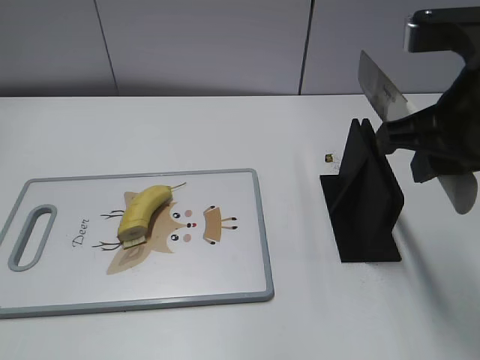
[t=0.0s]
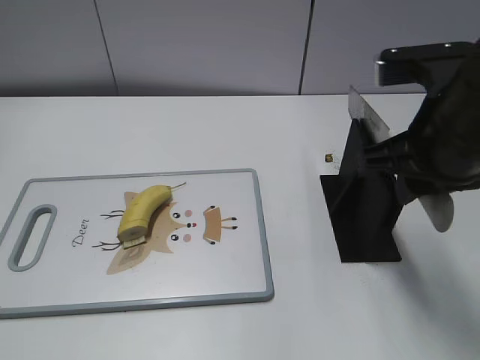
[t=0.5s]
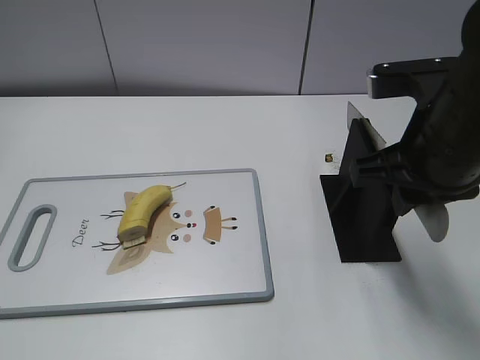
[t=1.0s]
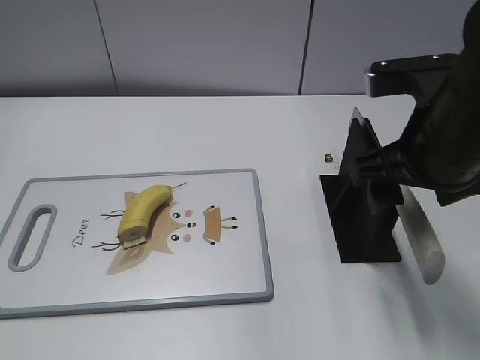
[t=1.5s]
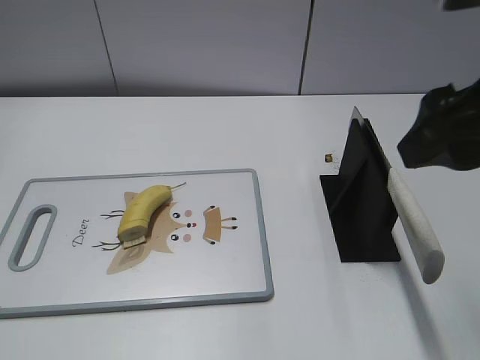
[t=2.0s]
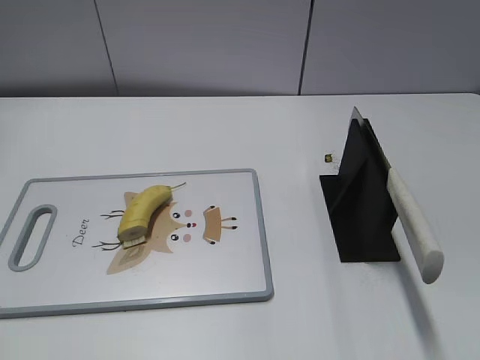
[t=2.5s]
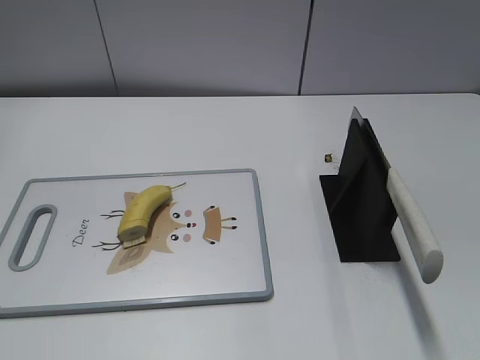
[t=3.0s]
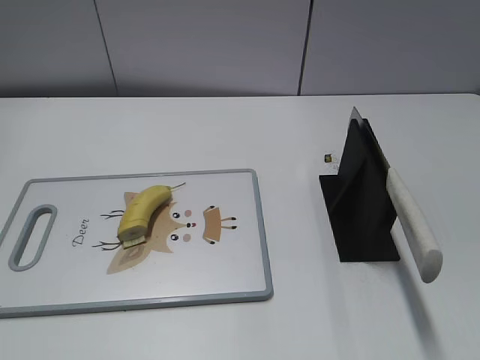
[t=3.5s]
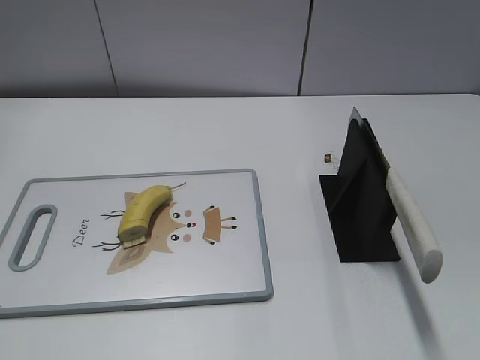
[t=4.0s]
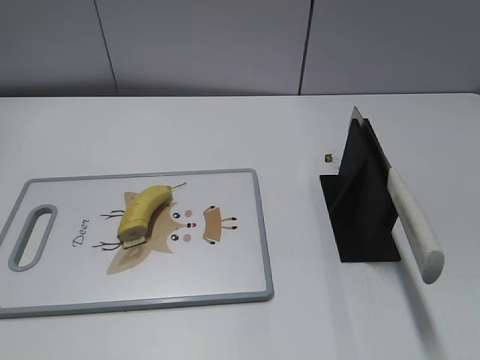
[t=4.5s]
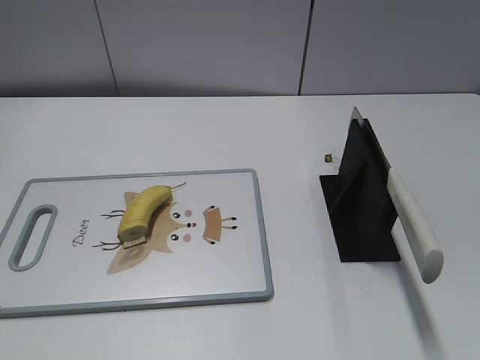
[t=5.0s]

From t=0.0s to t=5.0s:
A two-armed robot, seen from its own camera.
Task of the whole recording: cut banana.
Step, from t=0.0s to t=5.0s: Place the knife on the storage rack with your right hand.
From t=0.0s to t=2.5s: The right gripper travels backward, upward and to the right by some 15 cm, and opens its fingers.
